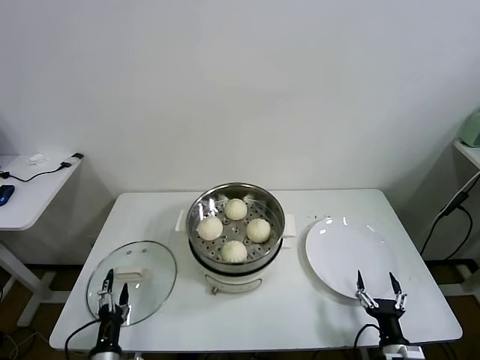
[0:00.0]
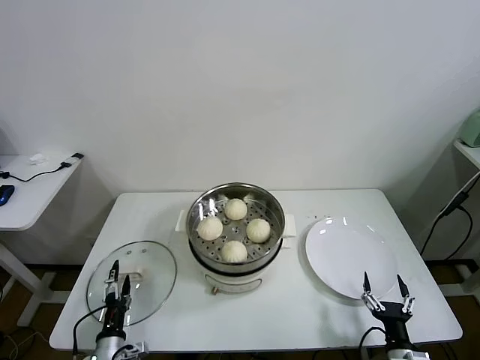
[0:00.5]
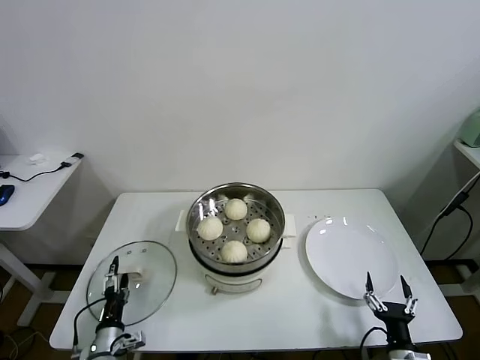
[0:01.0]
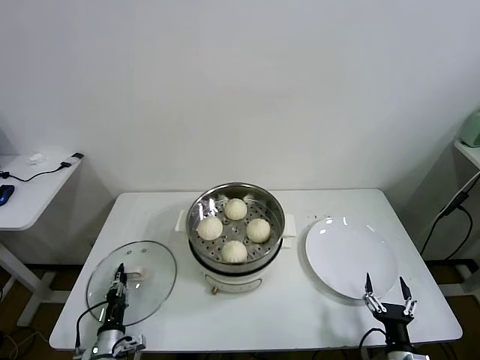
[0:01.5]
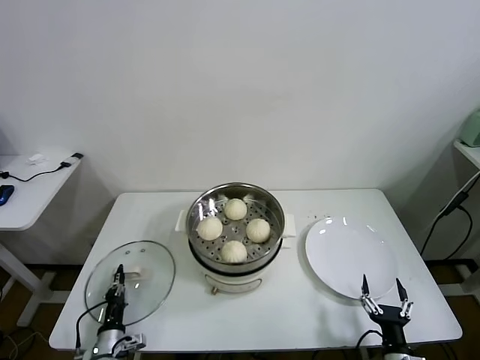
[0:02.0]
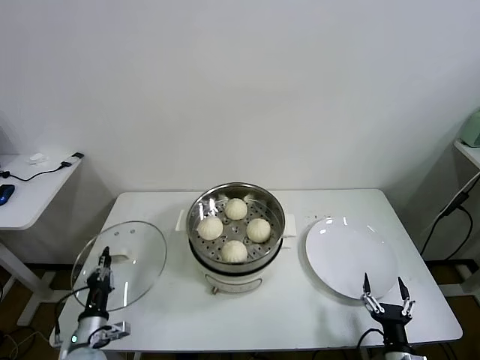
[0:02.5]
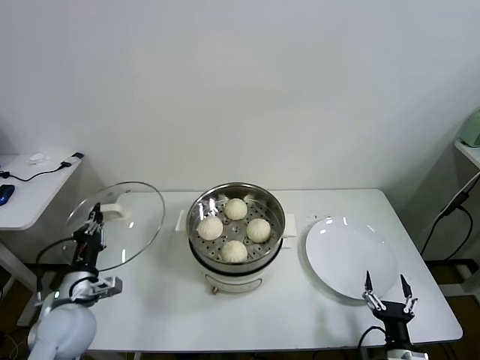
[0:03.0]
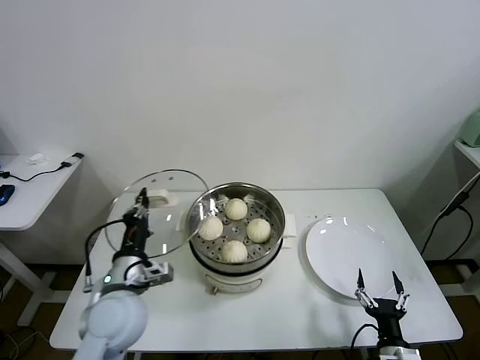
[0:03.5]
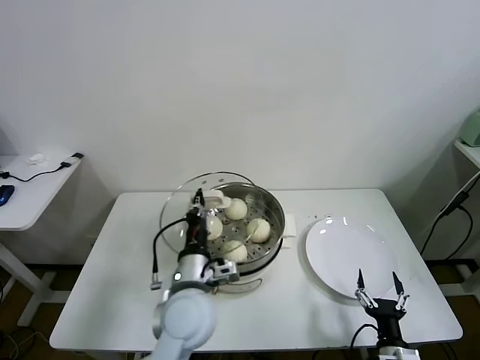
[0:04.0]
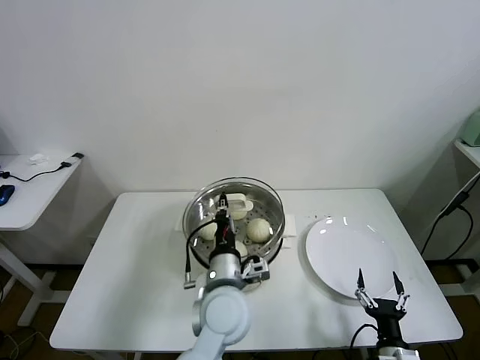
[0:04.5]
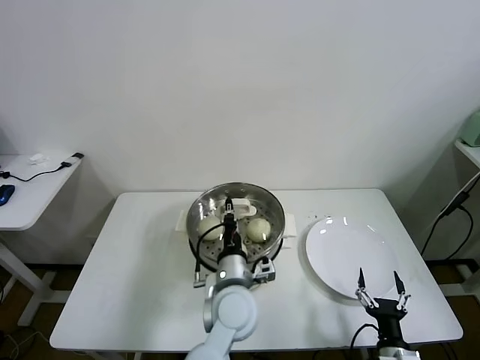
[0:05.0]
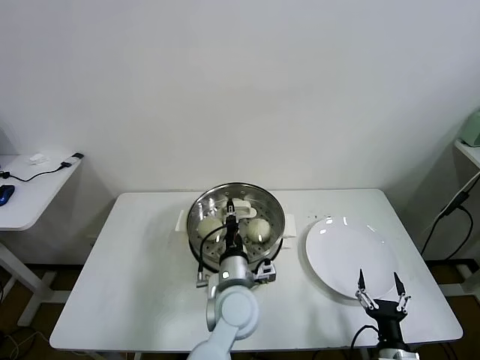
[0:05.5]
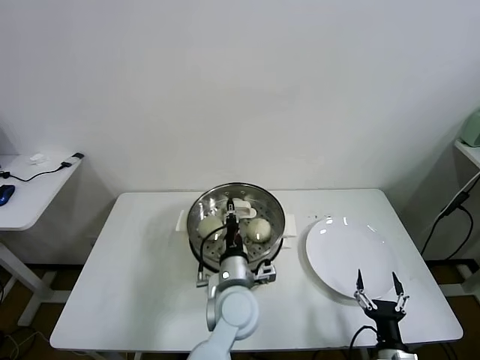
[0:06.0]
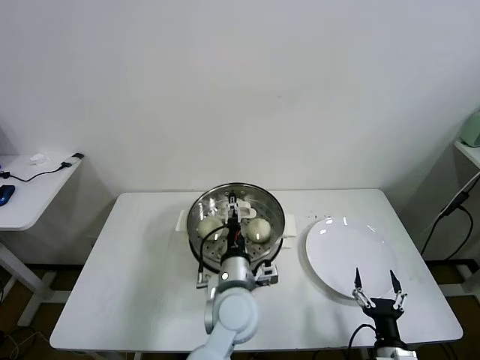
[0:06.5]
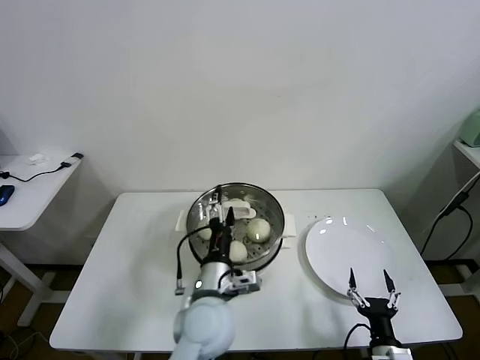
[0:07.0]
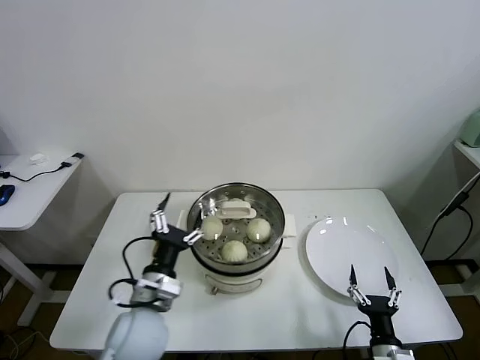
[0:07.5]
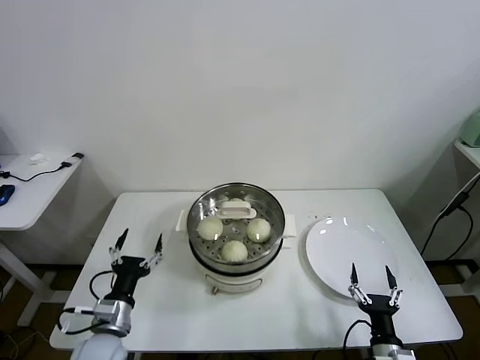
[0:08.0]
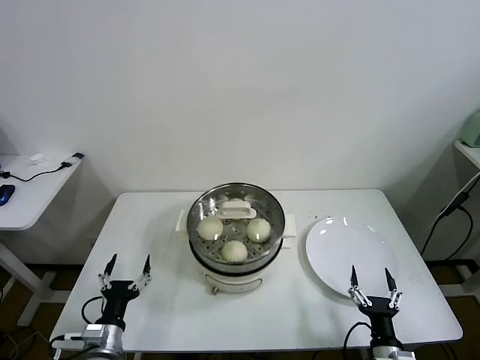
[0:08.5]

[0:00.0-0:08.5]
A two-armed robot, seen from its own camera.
Task of the whole recording: take steamed baozi put them in steamer.
Step, 0:02.0 to 0:06.0: Place the pot lid on the steamer with left gripper.
0:00.0 to 0:02.0: The left gripper goes about 10 cm forward and downward, and closes its fingers.
0:02.0 to 0:04.0: The left gripper goes some 35 cm upward and to the right.
0:04.0 to 0:06.5: The left gripper shifts about 10 cm to the right, and opens its fingers.
0:06.5 to 0:08.5: The left gripper shifts some 30 cm to the left.
